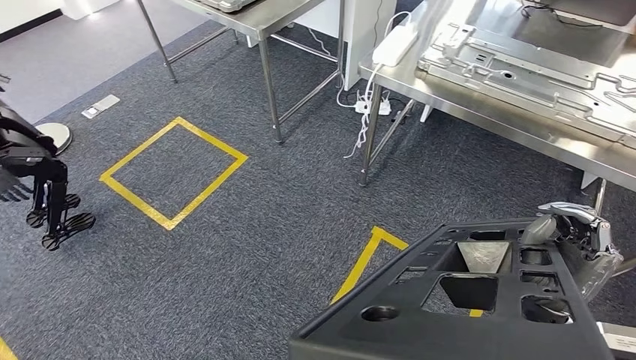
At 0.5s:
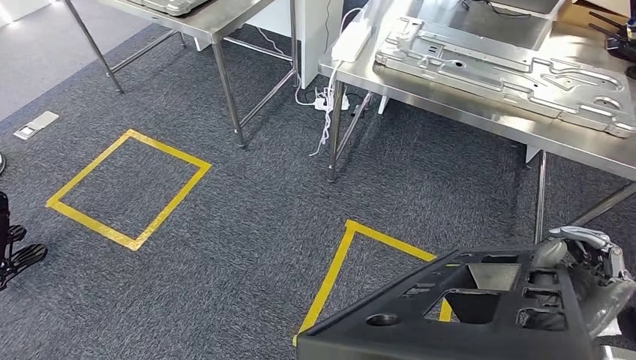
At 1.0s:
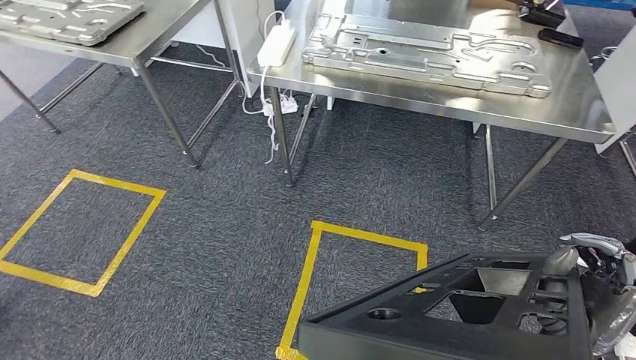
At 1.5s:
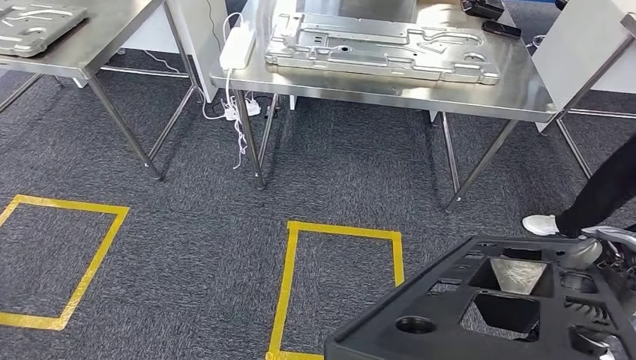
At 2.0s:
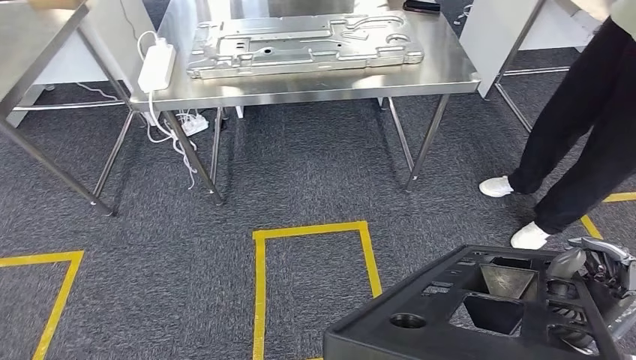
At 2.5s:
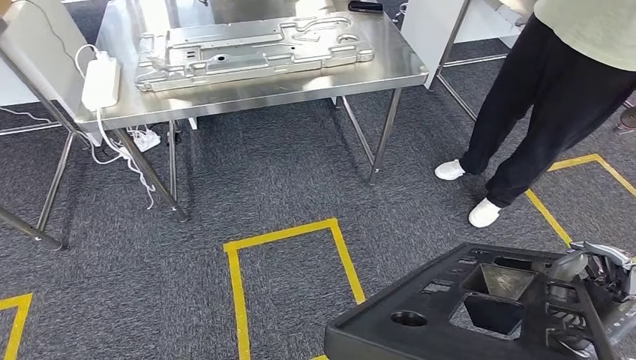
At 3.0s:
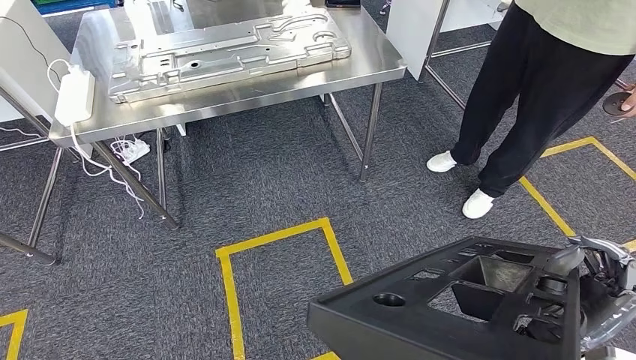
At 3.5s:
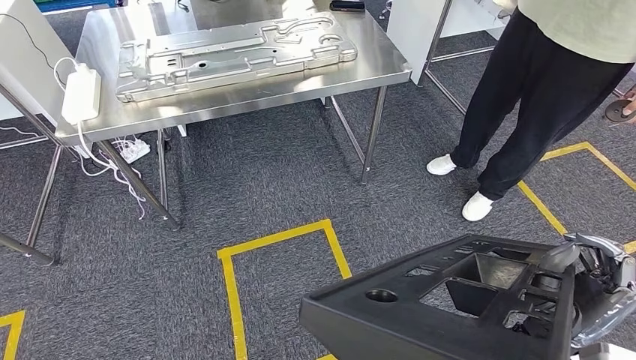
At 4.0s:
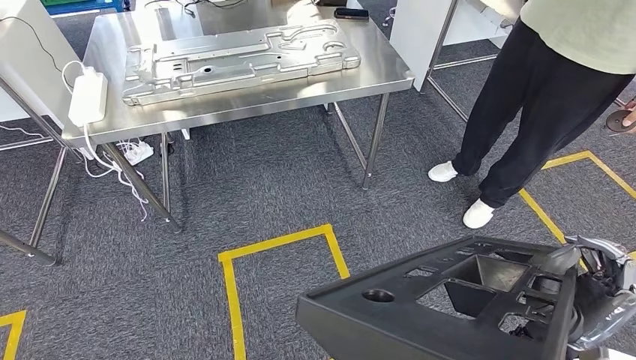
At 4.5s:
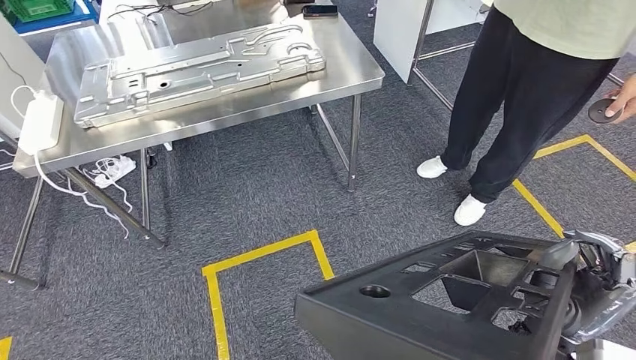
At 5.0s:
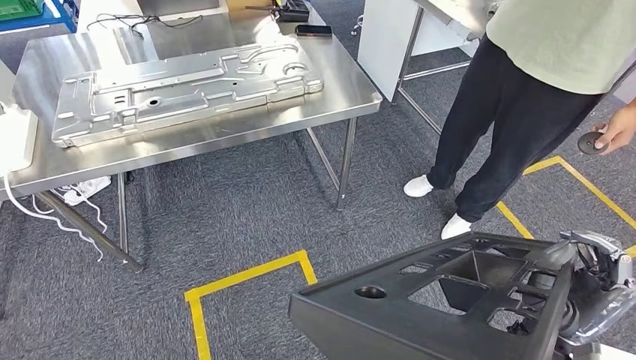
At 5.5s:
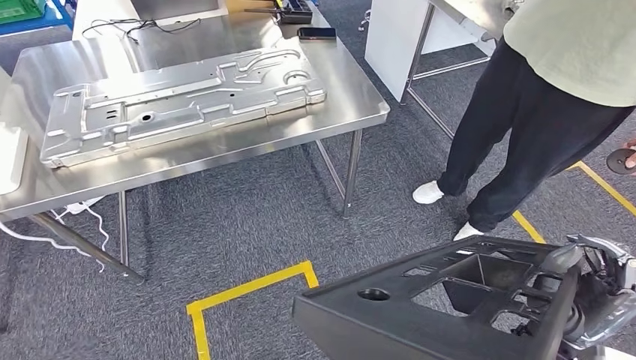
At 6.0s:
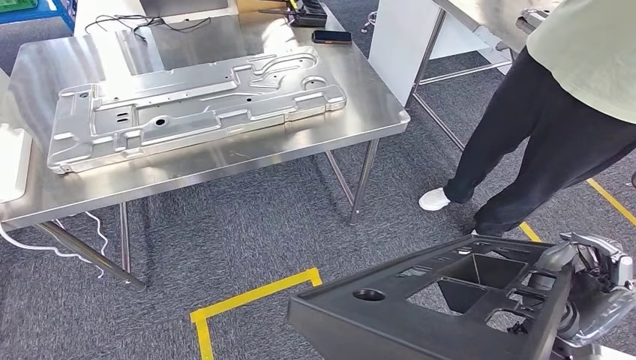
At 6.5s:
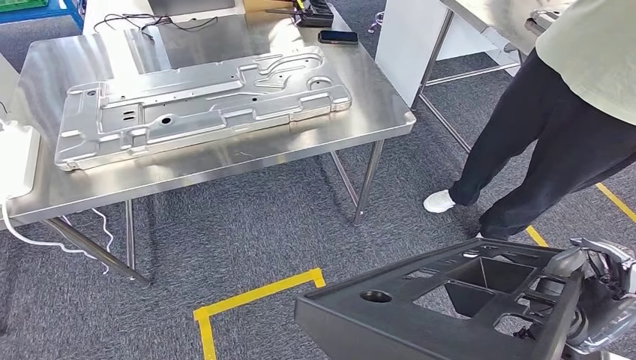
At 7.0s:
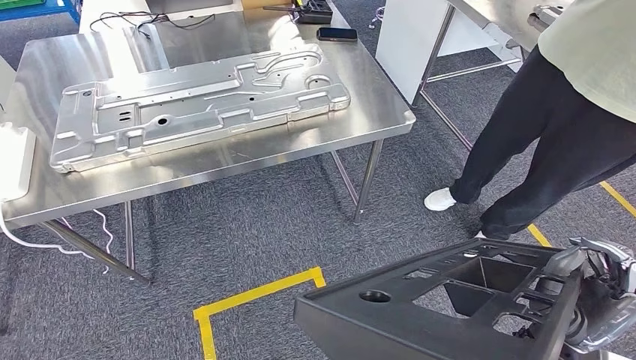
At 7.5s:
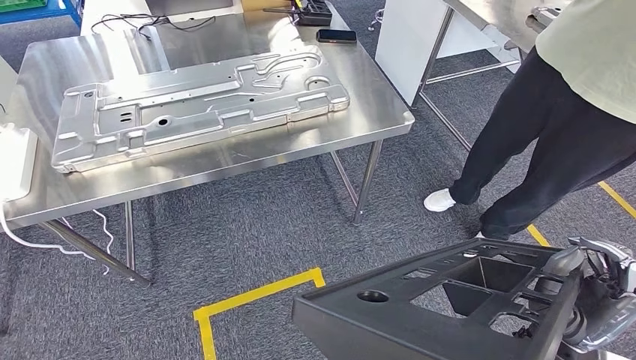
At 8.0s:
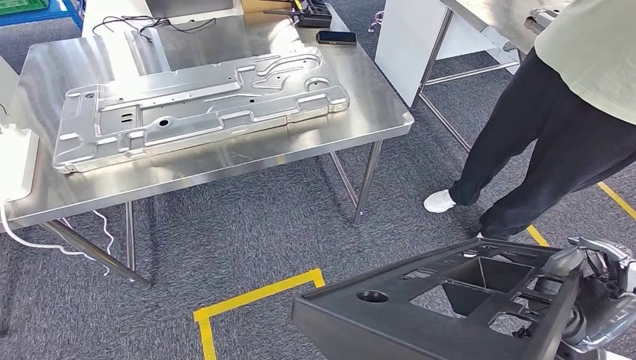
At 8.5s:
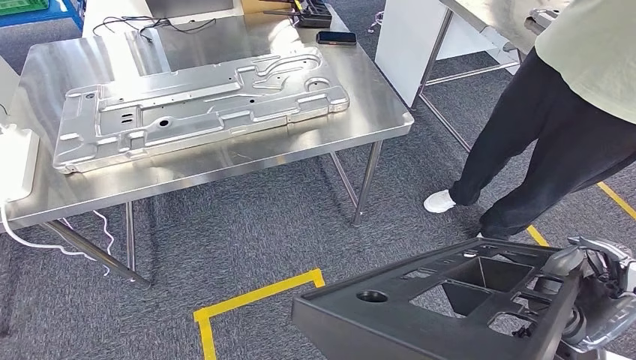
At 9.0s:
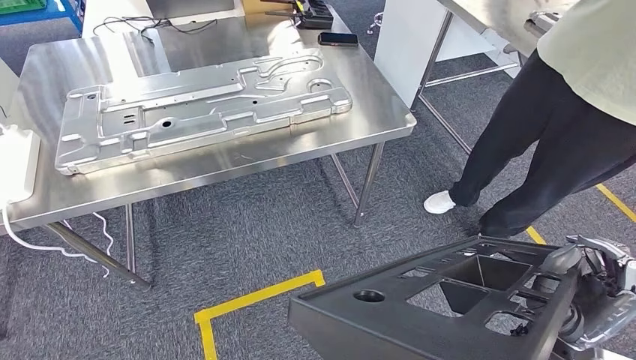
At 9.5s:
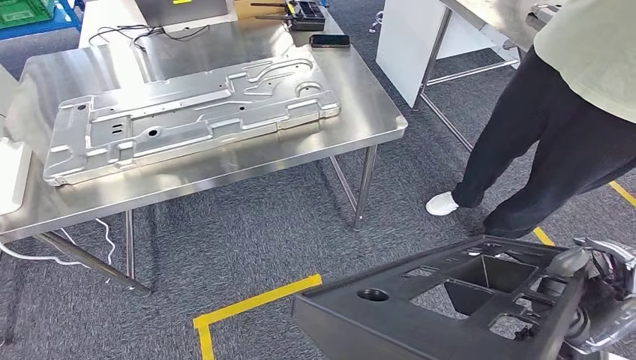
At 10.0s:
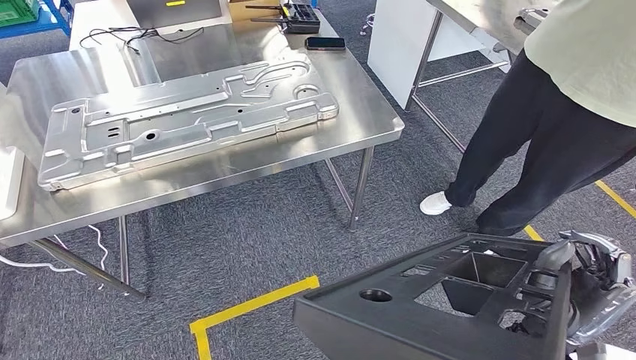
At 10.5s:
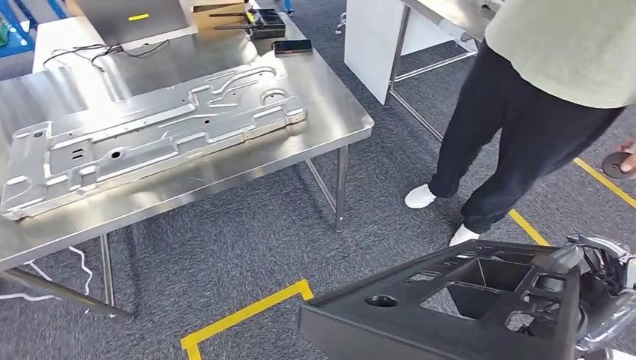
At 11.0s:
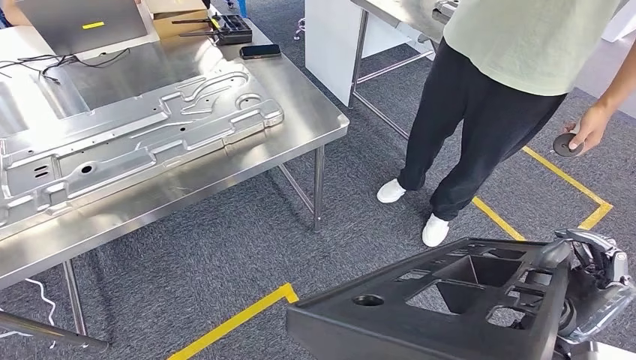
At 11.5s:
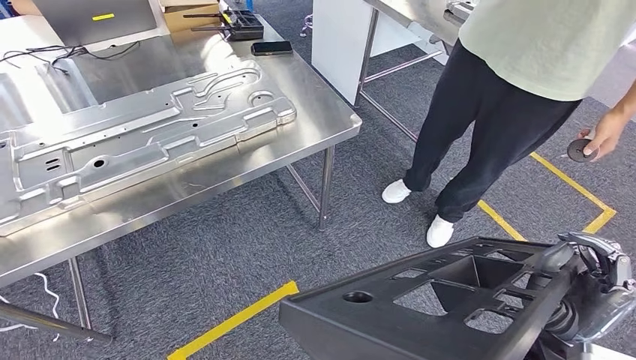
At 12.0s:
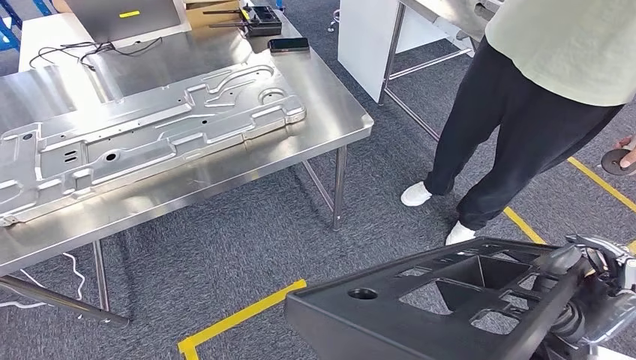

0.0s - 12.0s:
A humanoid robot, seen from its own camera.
Step, 0.0s - 7.5s: Move the large material to the workbench.
6.0s - 8.0s: Both hands stay put.

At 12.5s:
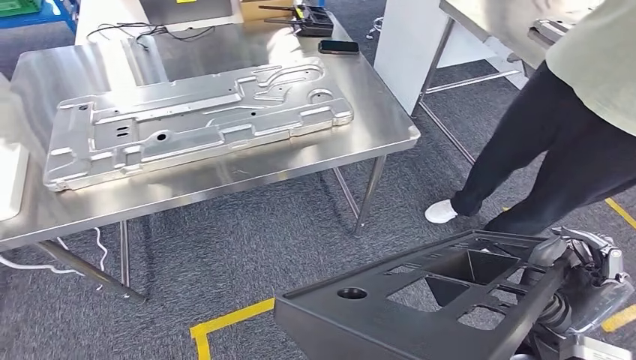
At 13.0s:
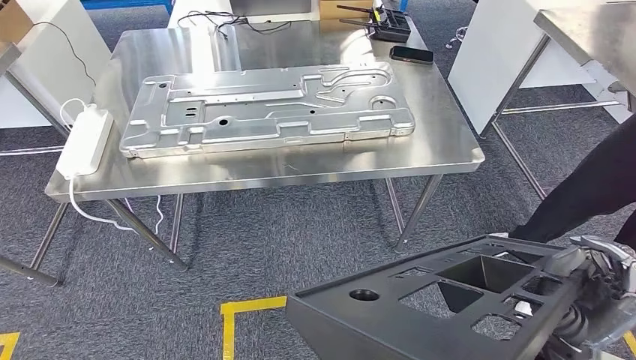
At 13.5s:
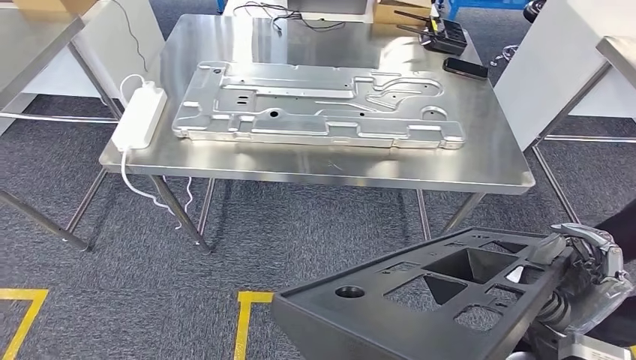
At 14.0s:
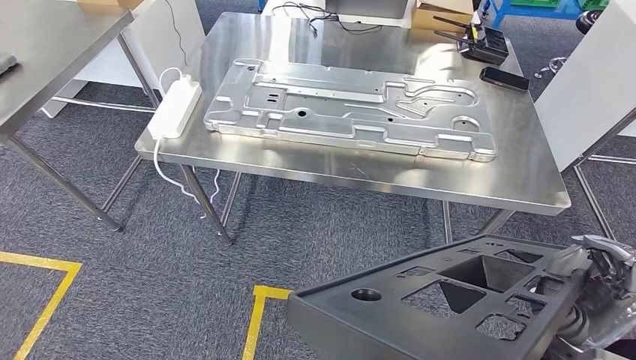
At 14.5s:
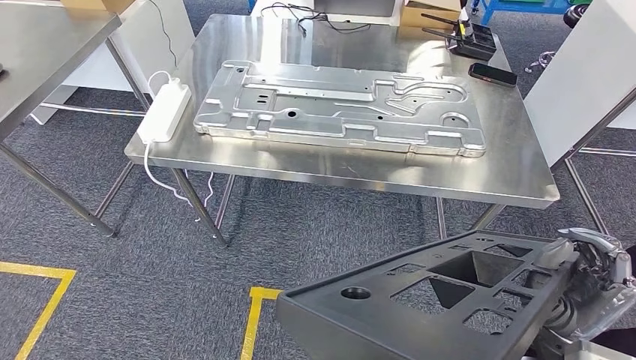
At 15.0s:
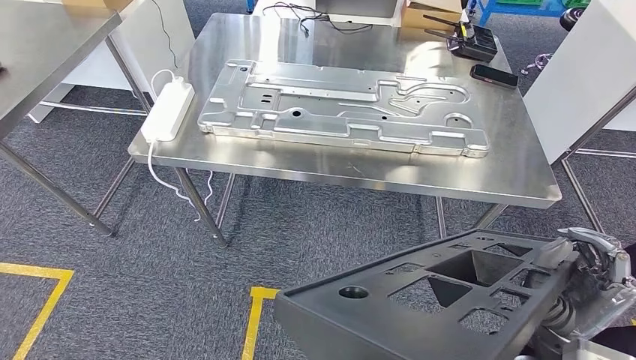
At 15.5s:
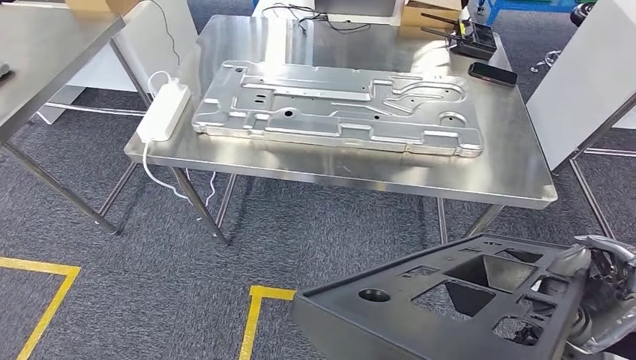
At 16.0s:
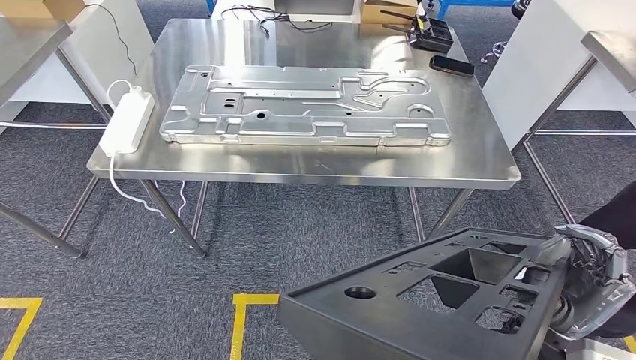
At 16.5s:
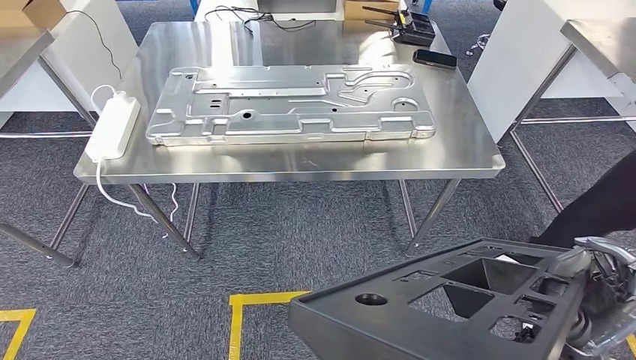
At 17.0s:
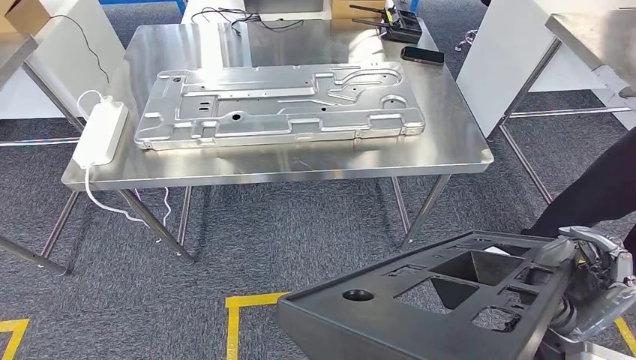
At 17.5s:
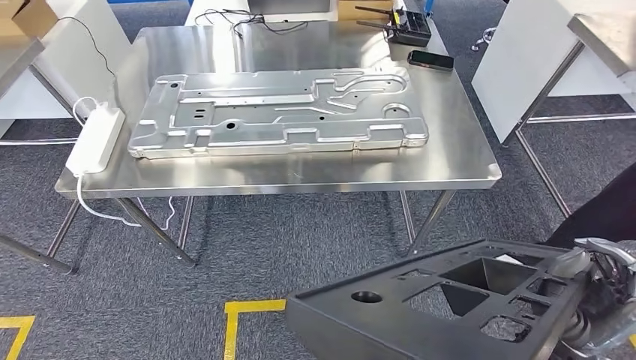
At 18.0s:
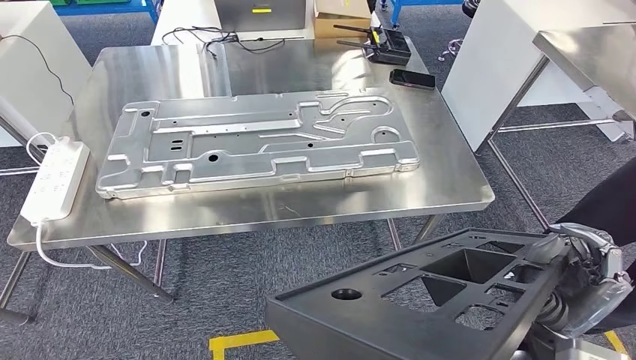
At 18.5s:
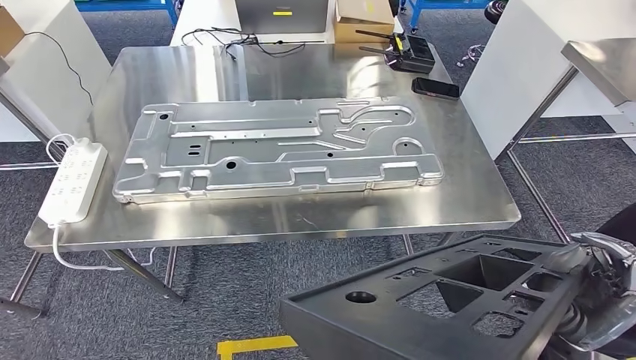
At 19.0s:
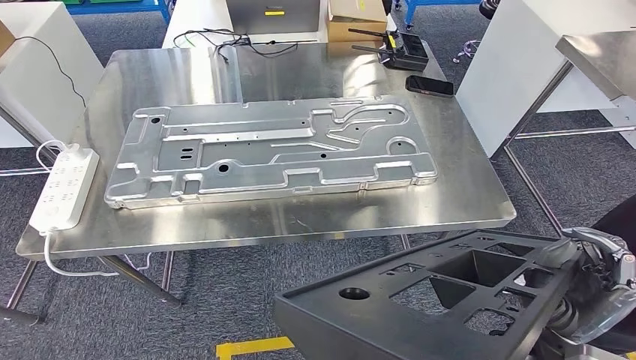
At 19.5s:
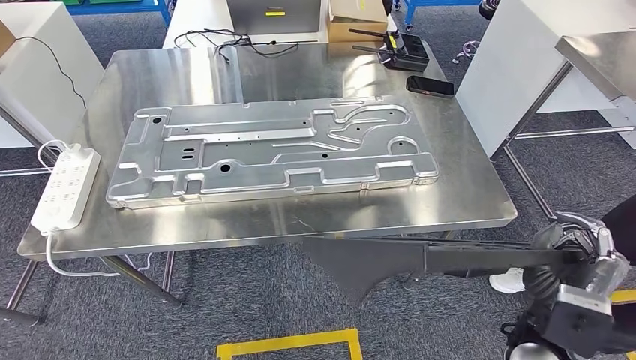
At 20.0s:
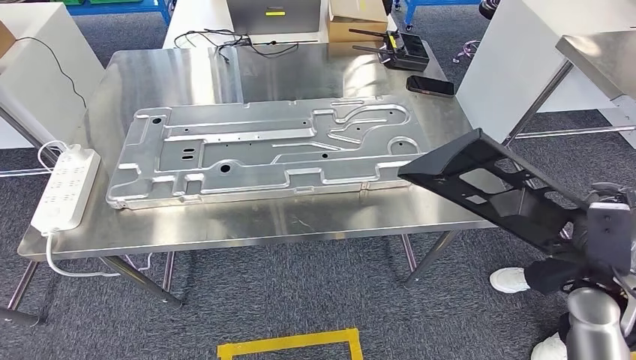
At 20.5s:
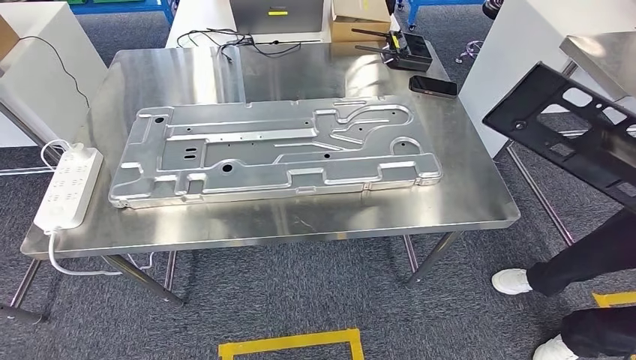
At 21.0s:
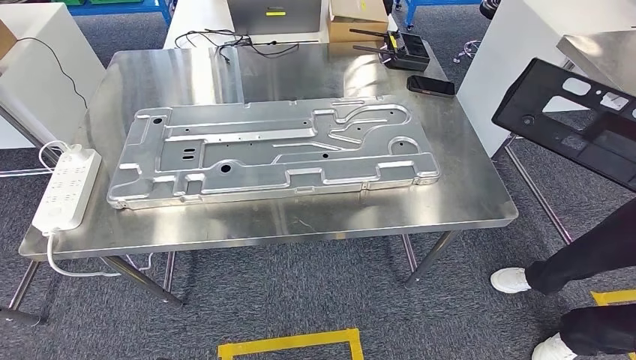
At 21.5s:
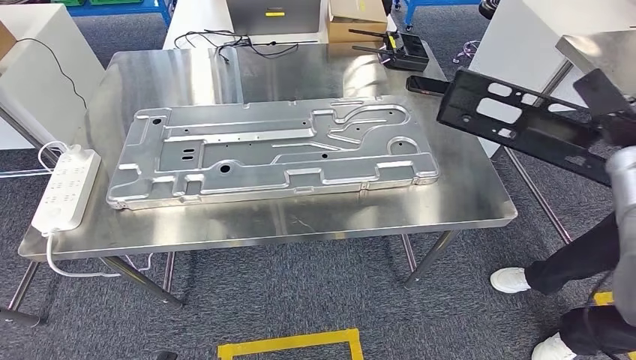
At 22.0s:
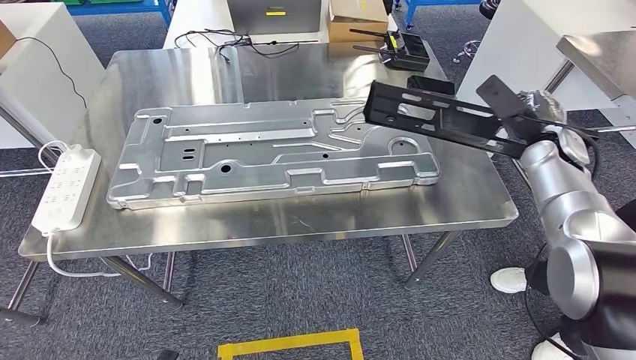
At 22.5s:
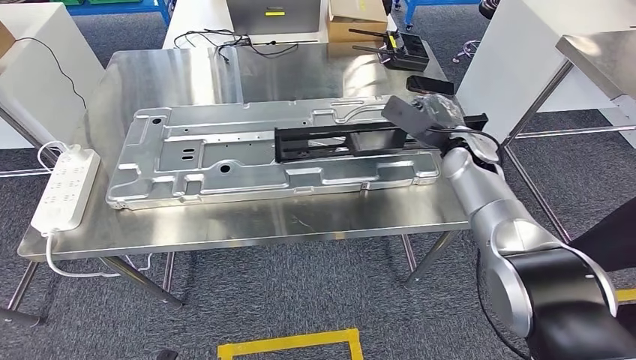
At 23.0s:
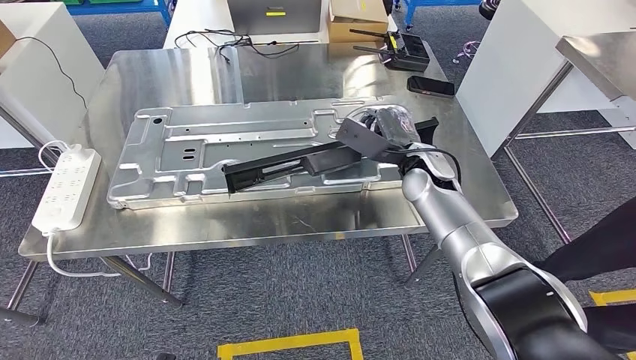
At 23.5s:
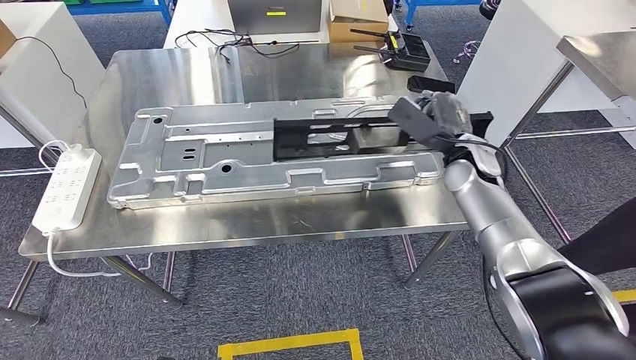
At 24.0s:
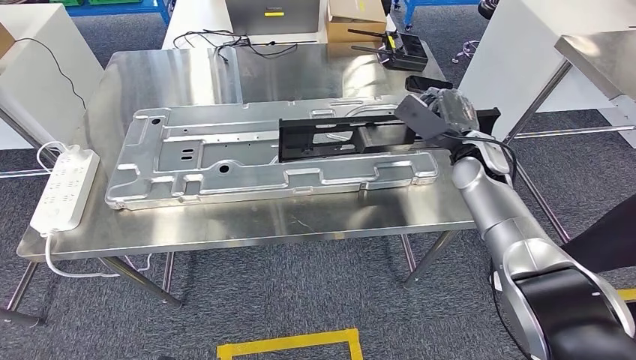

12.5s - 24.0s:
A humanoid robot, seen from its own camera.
20.0s - 22.0s: The right hand is displaced forward and upward by approximately 25 cm.
